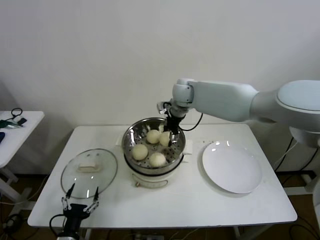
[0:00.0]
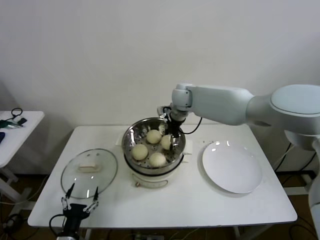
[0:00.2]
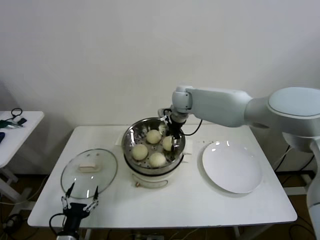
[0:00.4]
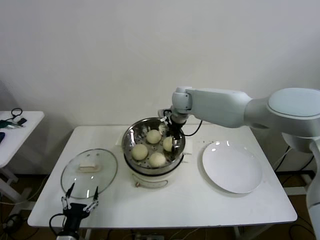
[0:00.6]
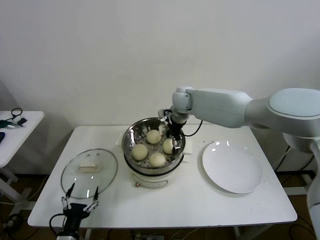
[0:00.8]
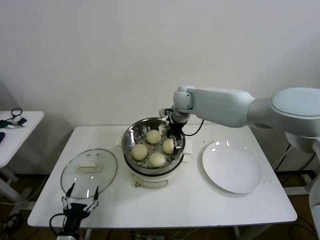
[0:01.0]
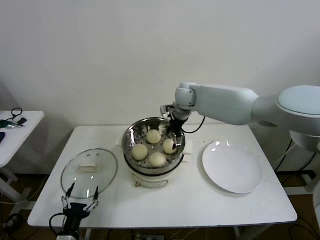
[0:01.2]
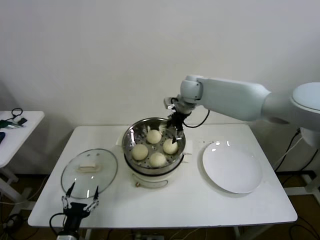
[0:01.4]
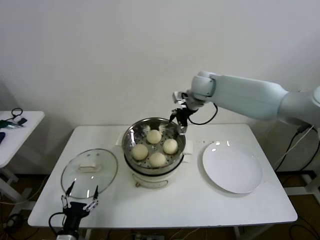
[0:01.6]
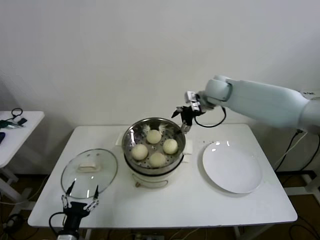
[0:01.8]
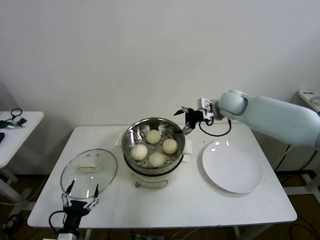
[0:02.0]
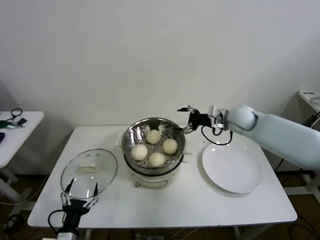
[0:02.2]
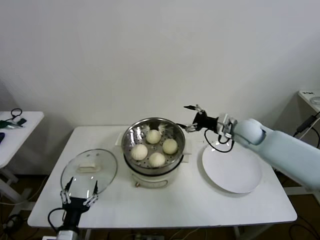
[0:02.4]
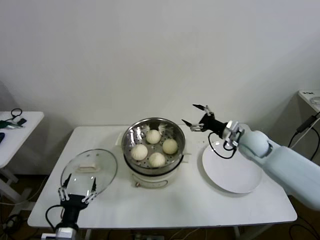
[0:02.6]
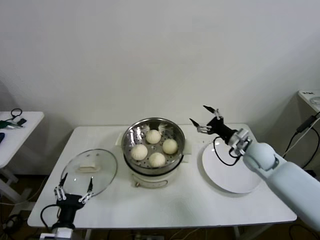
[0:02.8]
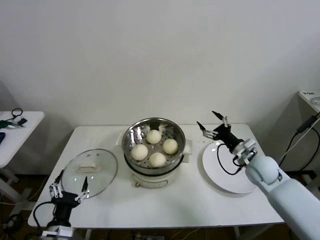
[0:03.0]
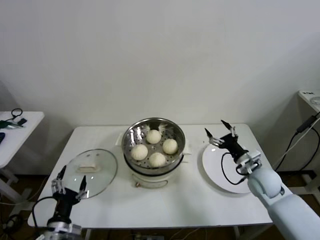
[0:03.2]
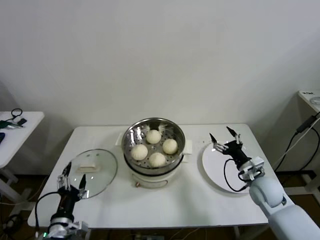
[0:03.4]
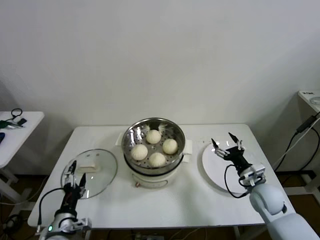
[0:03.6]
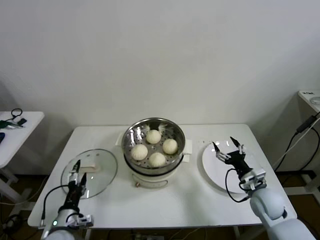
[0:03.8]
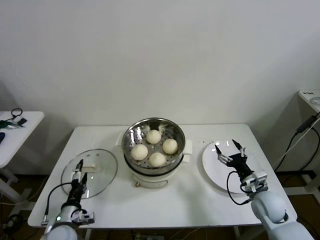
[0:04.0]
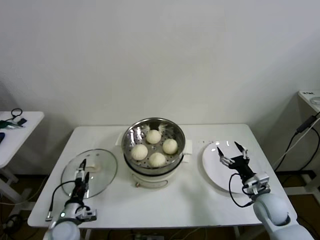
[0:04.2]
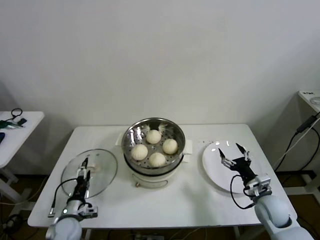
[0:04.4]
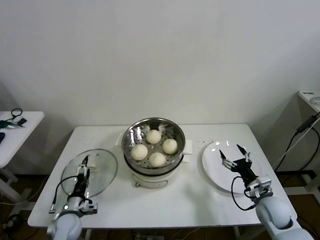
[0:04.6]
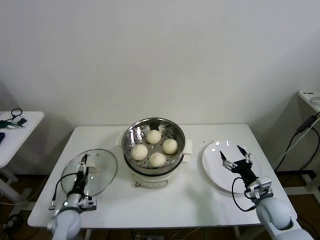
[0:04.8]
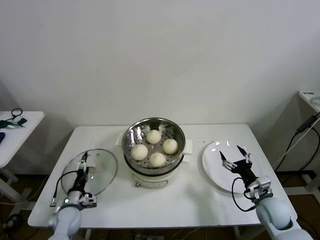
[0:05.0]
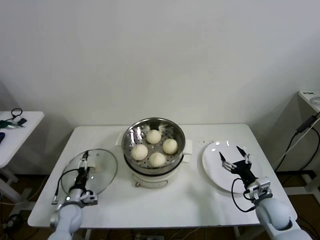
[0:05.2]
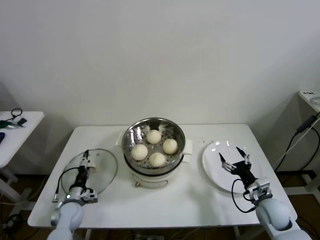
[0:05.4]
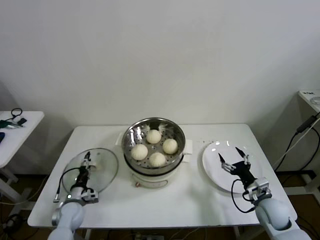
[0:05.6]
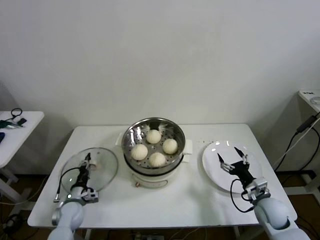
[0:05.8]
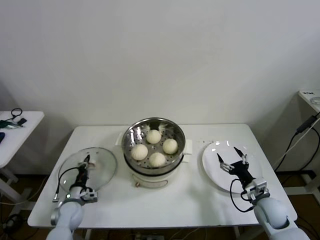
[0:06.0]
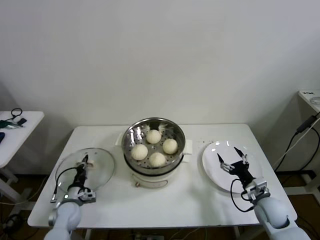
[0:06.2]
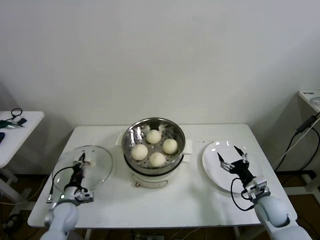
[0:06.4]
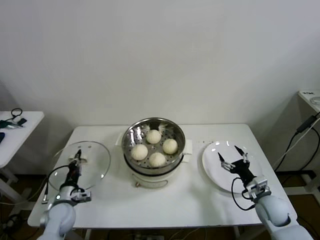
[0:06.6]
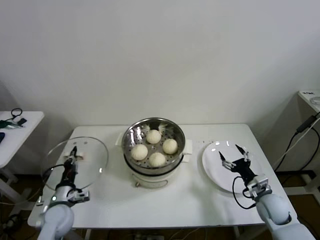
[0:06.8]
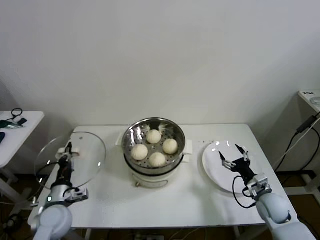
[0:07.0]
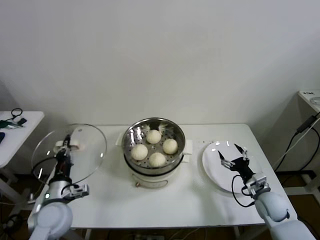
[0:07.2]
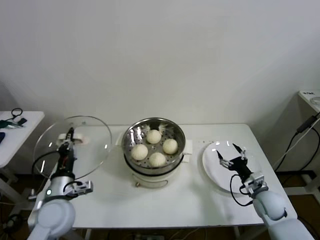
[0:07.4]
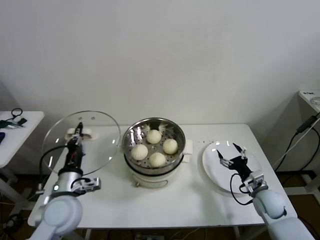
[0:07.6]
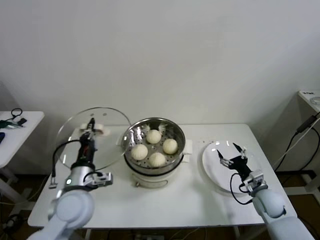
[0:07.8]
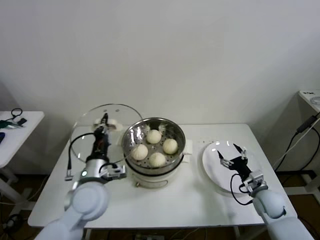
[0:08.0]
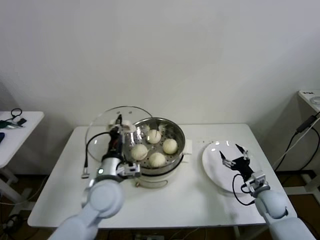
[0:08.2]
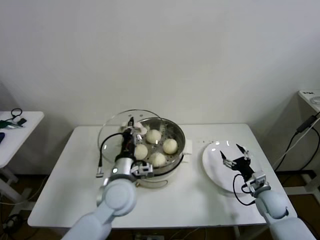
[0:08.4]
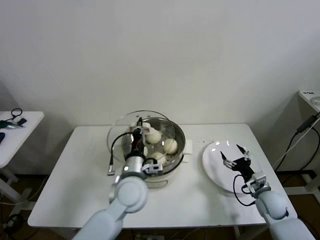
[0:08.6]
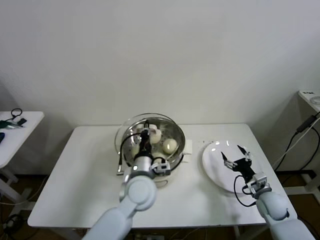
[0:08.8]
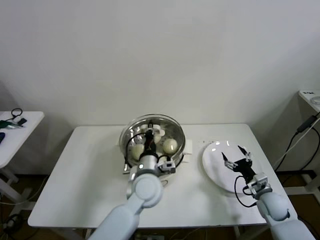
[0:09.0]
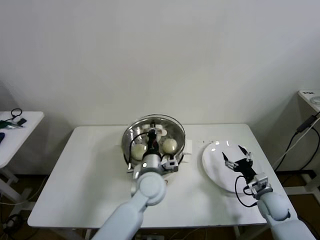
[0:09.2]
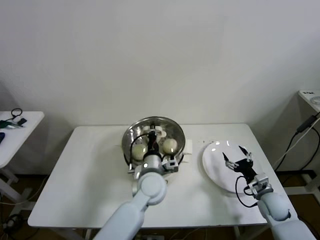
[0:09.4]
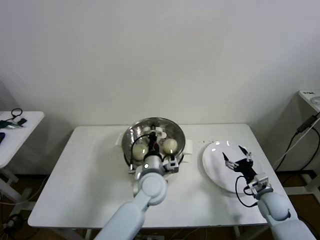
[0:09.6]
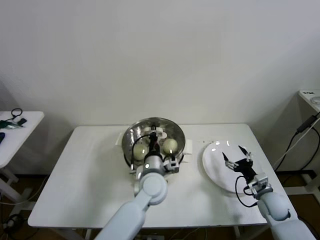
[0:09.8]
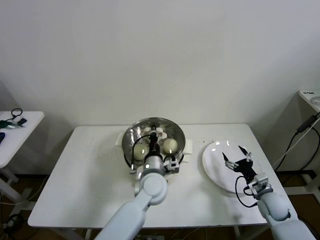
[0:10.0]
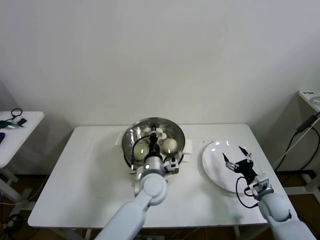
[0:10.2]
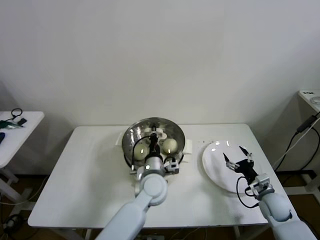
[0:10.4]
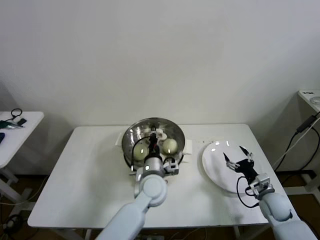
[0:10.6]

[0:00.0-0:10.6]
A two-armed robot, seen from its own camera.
Step, 0:01.0 to 0:06.0: Grasp the pot lid with left gripper.
Step, 0:06.2 to 0:10.6: Place the pot lid on the steamer with left gripper.
0:00.0 to 0:01.6: The right gripper moves to the right, approximately 5 cm, and opens up.
0:01.6 to 0:03.0: The right gripper moves downward, backward and to the right, approximately 35 cm.
0:03.0 to 0:04.6: The left gripper heads forward and downward, covering about 15 cm. Meanwhile the right gripper goes roughly 15 cm backward and downward.
0:04.6 to 0:06.0: The left gripper heads forward, covering approximately 5 cm, and closes.
0:06.0 to 0:07.6: The left gripper moves upward, about 20 cm.
0:07.6 to 0:09.0: The left gripper heads to the right, covering roughly 20 cm.
0:09.0 to 0:10.6: The left gripper moves roughly 5 cm.

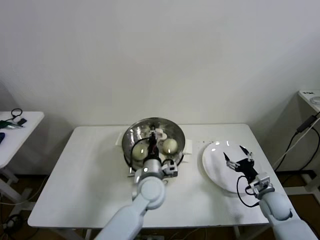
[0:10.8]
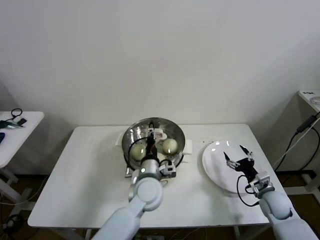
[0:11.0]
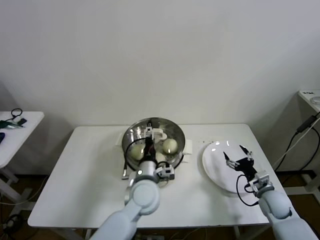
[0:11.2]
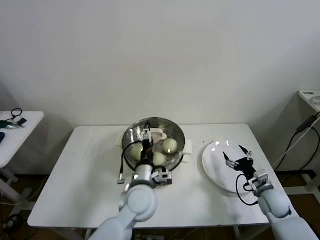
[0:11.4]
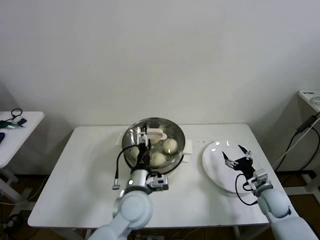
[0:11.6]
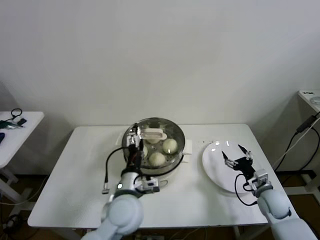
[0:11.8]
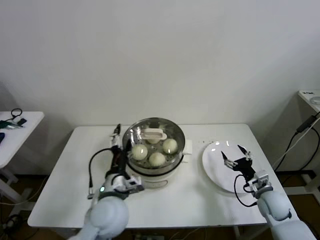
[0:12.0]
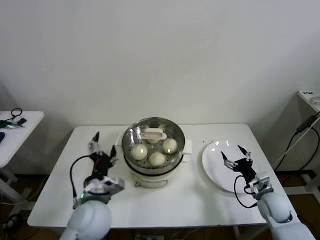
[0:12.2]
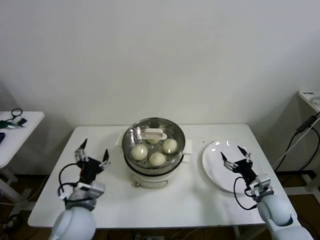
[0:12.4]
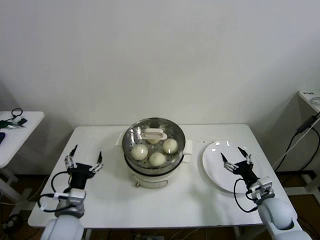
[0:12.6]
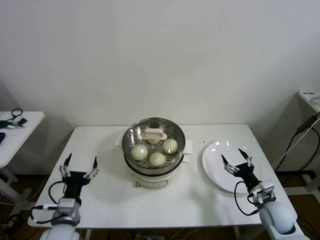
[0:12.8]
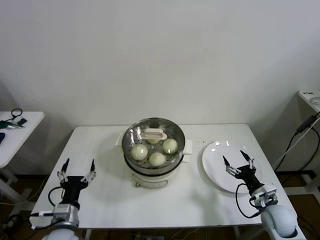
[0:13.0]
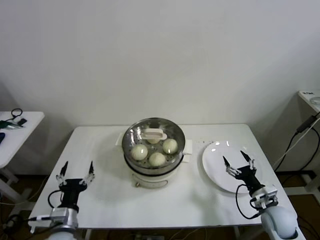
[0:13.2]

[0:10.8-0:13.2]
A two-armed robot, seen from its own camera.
0:10.8 to 0:12.0: The left gripper travels to the left, backward and upward by some 15 cm, and opens its fingers.
0:12.0 to 0:13.2: The left gripper shifts roughly 20 cm to the left and downward, while the right gripper moves backward, roughly 5 cm.

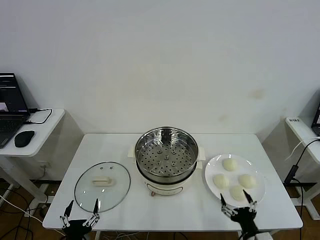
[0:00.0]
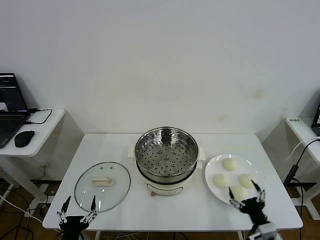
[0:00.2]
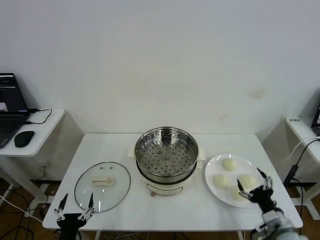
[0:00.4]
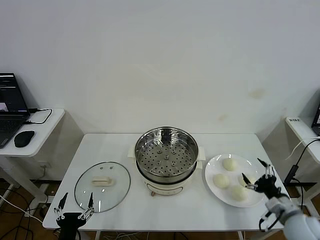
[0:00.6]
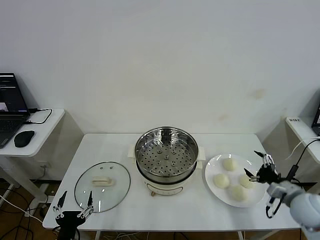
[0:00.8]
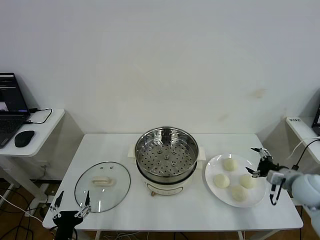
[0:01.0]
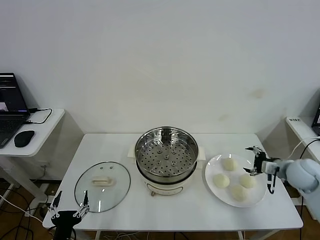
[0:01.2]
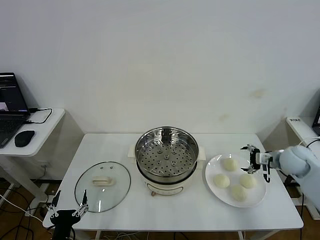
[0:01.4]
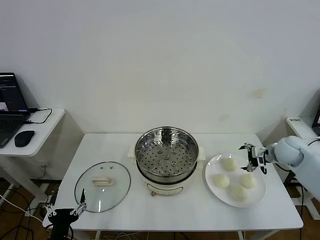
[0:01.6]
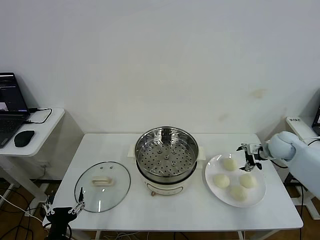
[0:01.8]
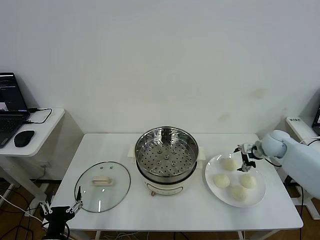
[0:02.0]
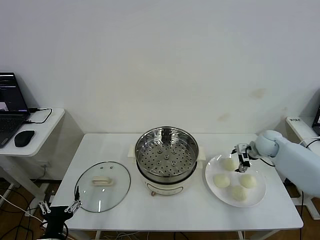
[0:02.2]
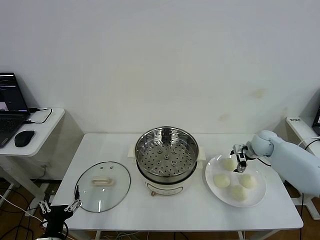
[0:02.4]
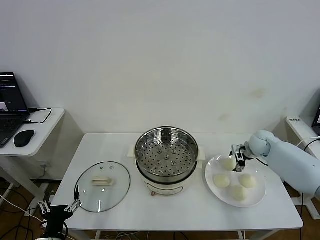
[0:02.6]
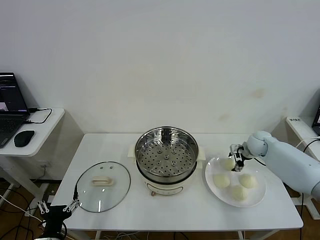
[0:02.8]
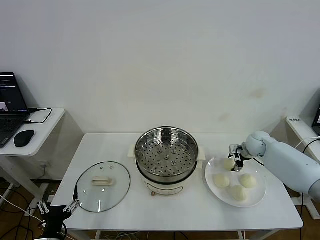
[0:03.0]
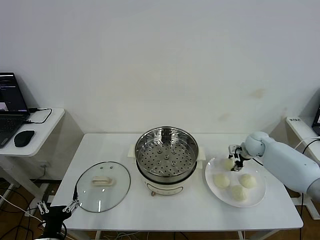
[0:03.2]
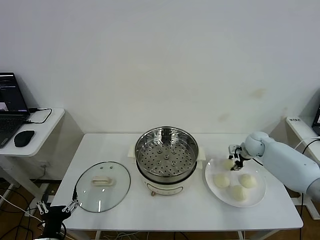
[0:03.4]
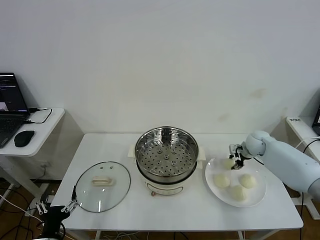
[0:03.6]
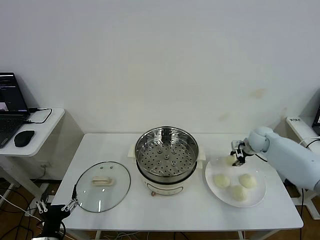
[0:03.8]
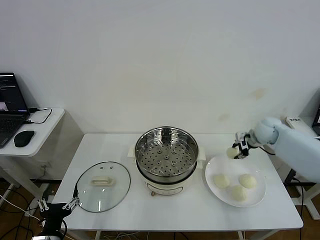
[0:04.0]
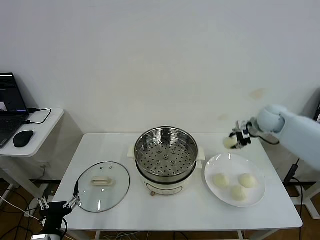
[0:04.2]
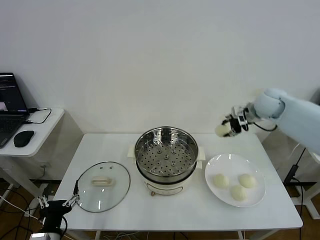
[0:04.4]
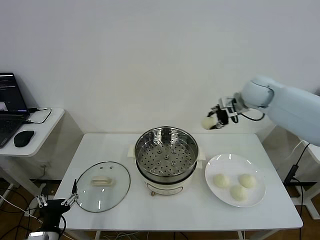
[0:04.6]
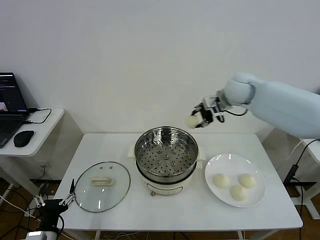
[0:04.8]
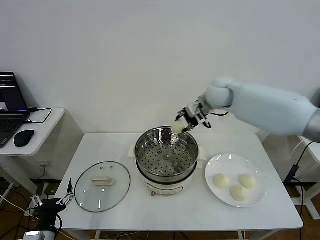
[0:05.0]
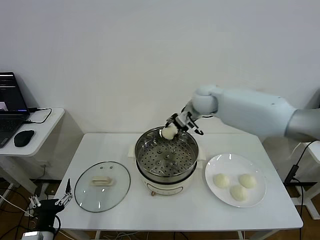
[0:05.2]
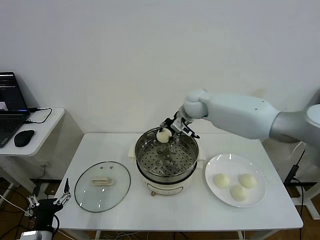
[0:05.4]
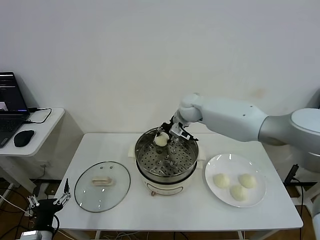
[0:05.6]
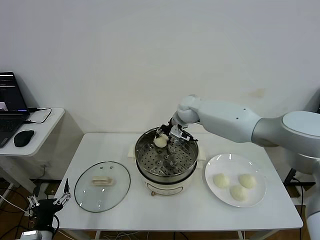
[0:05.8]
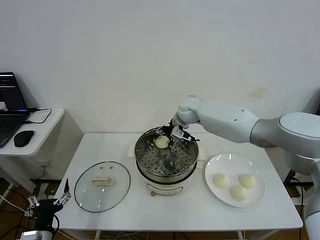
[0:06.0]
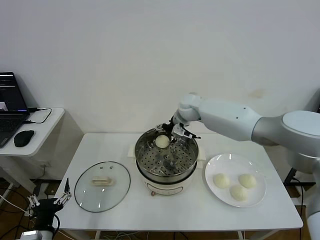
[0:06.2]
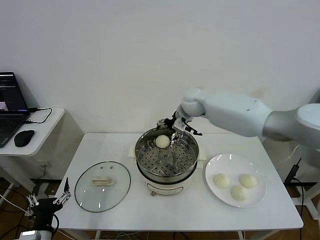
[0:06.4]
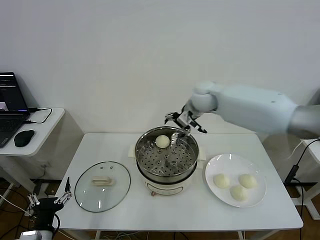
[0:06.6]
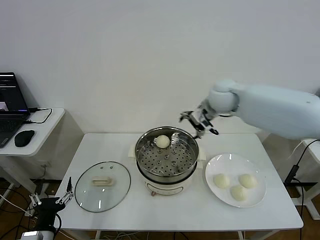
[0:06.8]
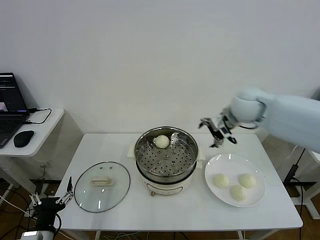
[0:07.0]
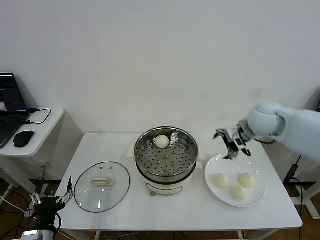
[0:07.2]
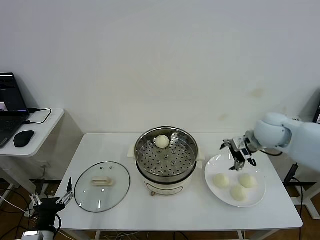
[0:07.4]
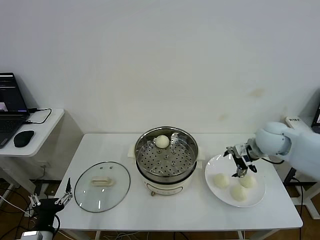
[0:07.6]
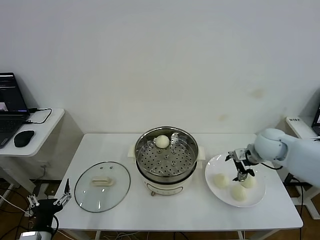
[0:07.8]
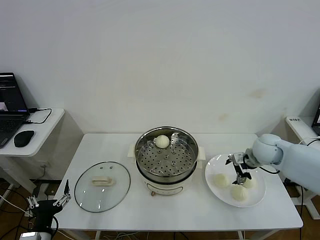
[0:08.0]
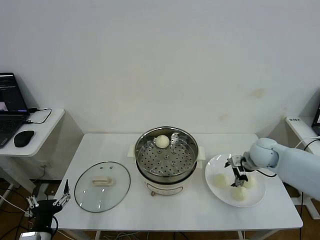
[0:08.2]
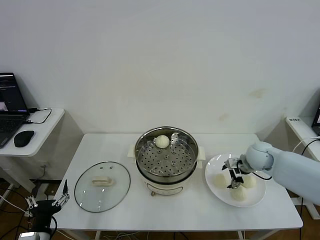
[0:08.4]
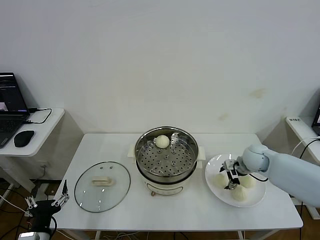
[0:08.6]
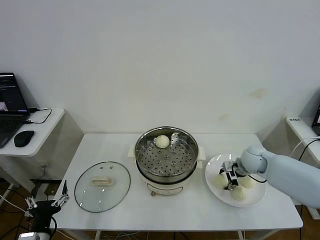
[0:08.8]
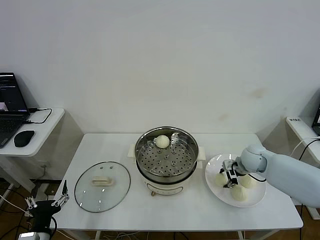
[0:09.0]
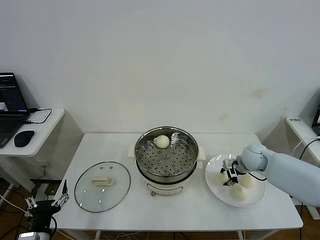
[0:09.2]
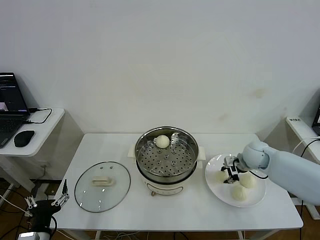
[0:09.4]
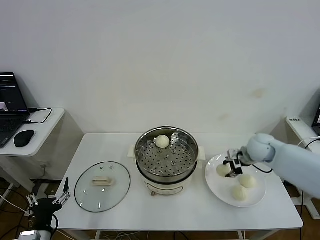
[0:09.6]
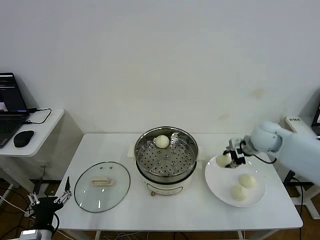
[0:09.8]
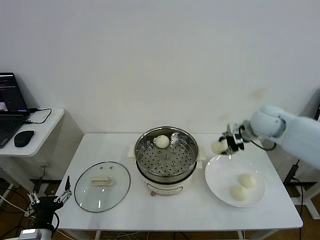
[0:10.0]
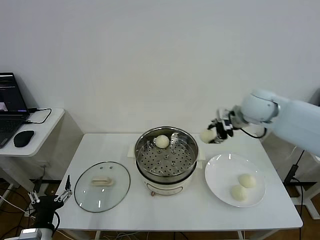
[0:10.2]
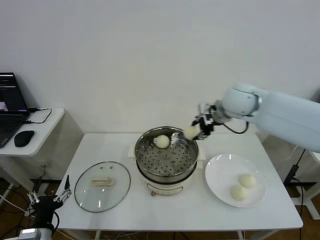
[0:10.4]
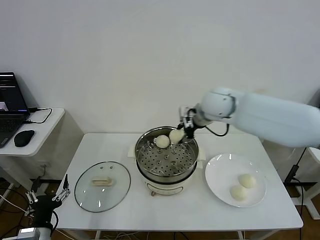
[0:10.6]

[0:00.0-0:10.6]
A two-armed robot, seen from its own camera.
Step, 0:00.0 to 0:03.0: Grasp the baozi in the plate with right gripper.
Step, 0:03.2 to 0:06.0: Place the baozi on the steamer with right gripper.
Step, 0:06.2 to 0:08.8: Grasp the baozi in the plate with right gripper.
0:01.6 to 0:03.0: The right gripper goes roughly 10 cm forward and downward, and closes its fingers.
0:03.0 to 0:04.6: The right gripper heads upward and to the left, covering approximately 25 cm, and closes its fingers.
0:04.6 to 0:06.0: The right gripper shifts some 20 cm to the left and downward, and opens its fingers.
0:06.0 to 0:07.6: The right gripper goes about 30 cm to the right and backward.
0:07.6 to 0:09.0: The right gripper shifts some 10 cm downward, and closes.
0:09.0 to 0:10.6: The right gripper moves upward and to the left, about 30 cm.
